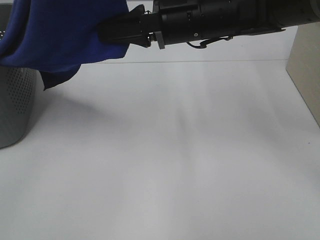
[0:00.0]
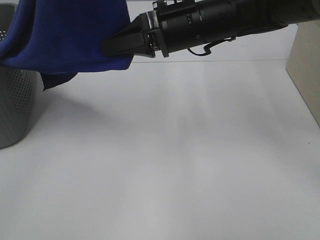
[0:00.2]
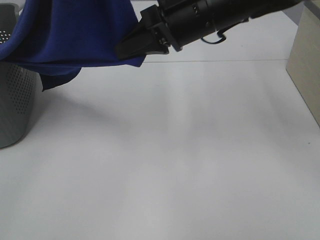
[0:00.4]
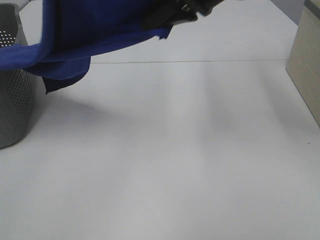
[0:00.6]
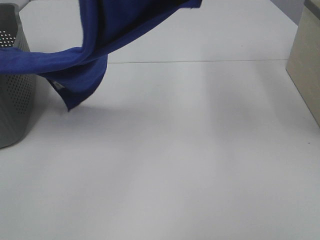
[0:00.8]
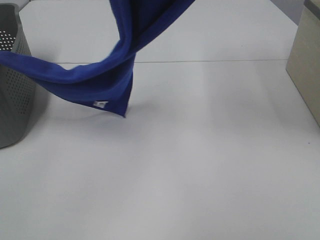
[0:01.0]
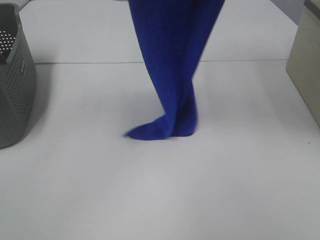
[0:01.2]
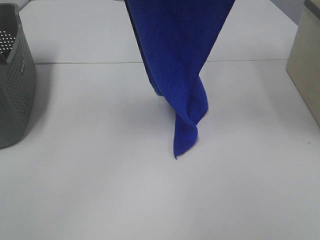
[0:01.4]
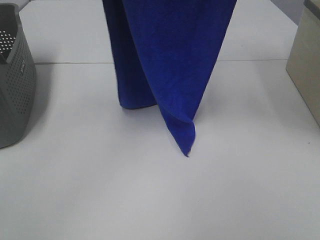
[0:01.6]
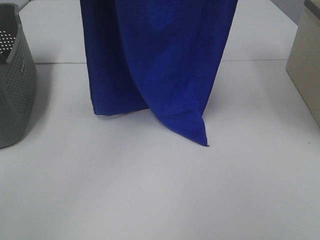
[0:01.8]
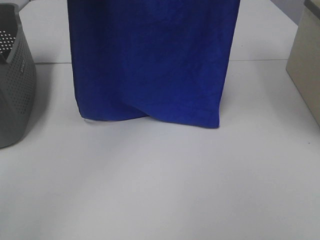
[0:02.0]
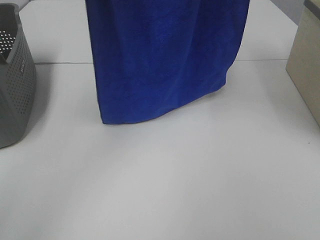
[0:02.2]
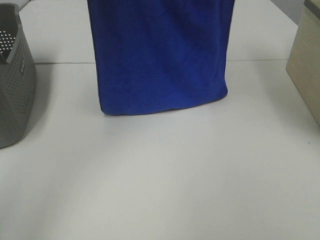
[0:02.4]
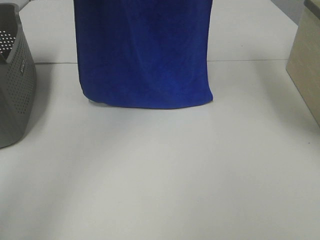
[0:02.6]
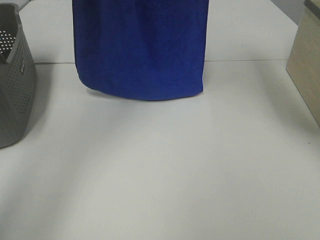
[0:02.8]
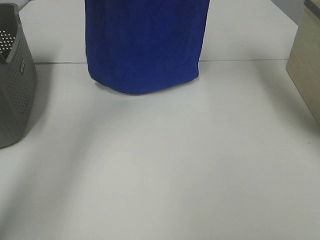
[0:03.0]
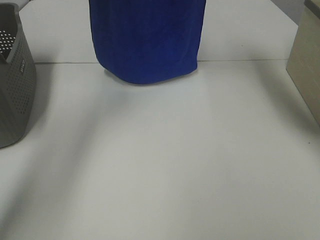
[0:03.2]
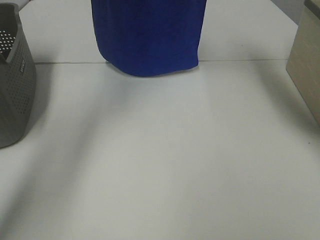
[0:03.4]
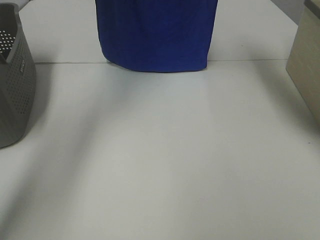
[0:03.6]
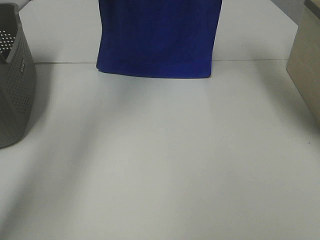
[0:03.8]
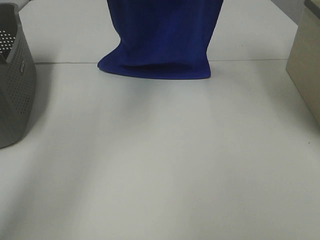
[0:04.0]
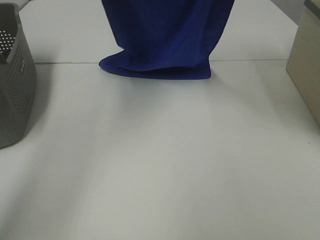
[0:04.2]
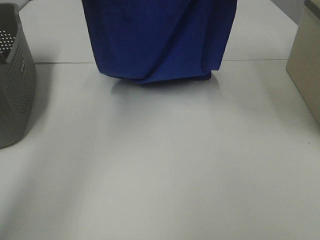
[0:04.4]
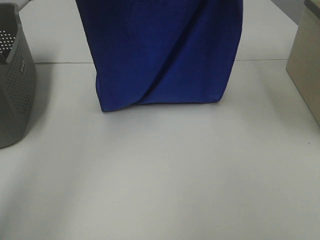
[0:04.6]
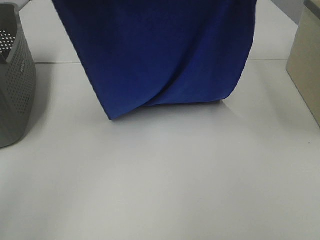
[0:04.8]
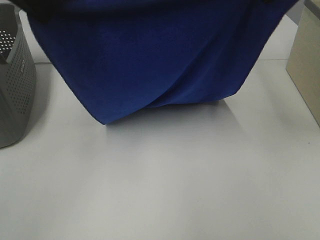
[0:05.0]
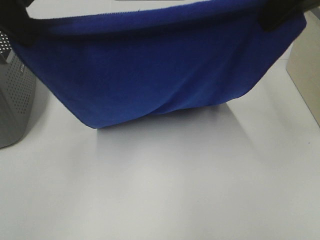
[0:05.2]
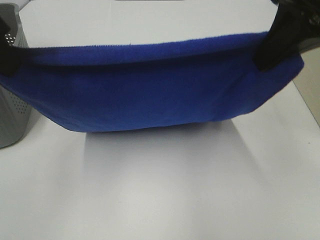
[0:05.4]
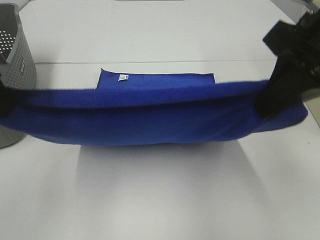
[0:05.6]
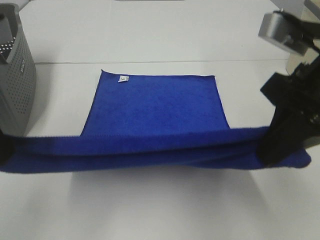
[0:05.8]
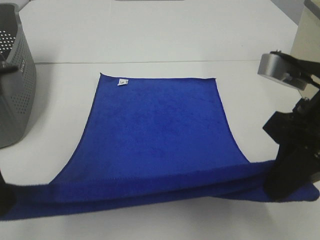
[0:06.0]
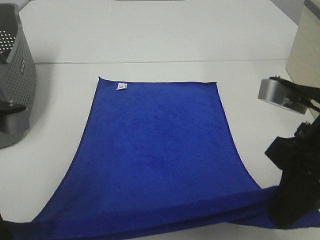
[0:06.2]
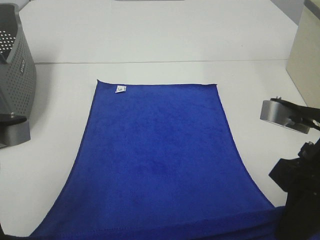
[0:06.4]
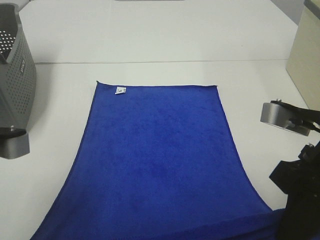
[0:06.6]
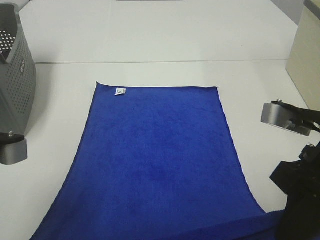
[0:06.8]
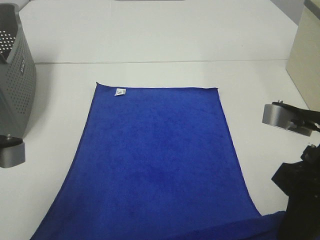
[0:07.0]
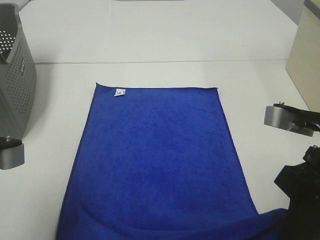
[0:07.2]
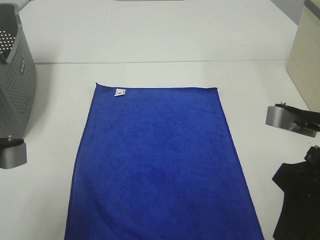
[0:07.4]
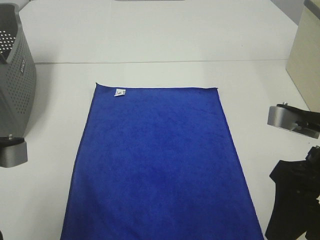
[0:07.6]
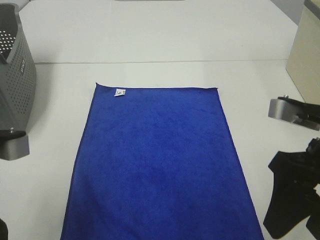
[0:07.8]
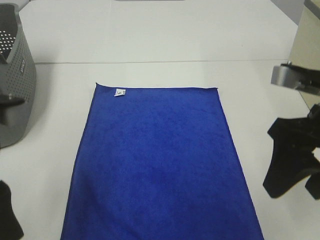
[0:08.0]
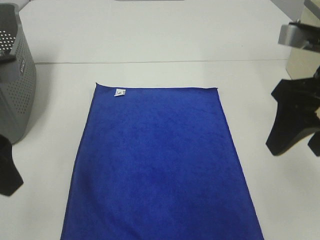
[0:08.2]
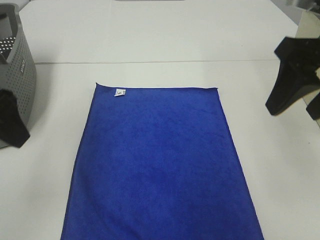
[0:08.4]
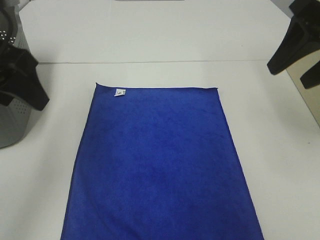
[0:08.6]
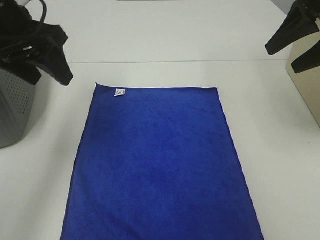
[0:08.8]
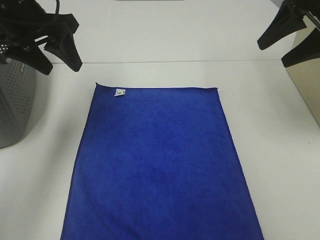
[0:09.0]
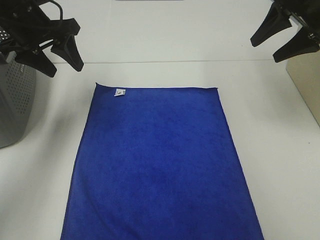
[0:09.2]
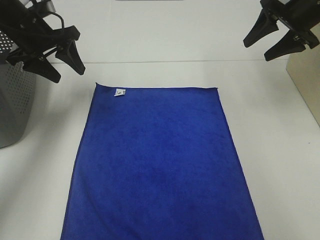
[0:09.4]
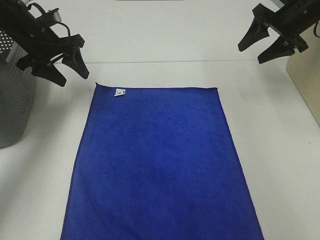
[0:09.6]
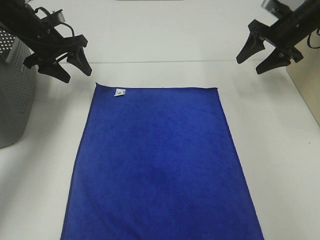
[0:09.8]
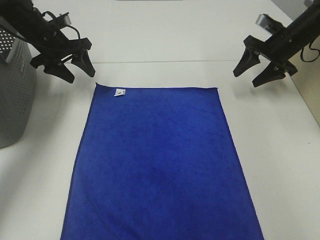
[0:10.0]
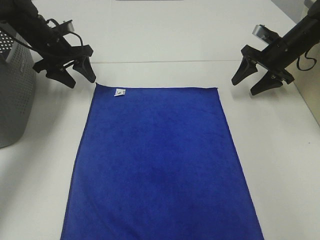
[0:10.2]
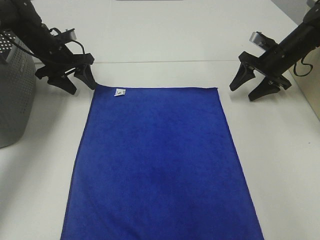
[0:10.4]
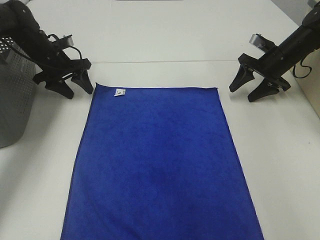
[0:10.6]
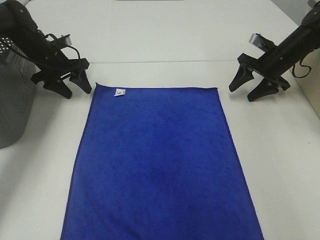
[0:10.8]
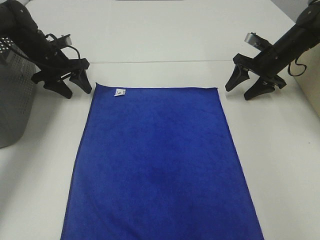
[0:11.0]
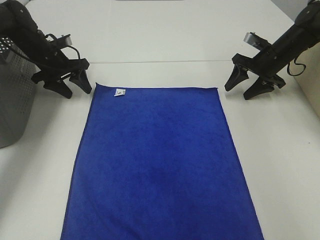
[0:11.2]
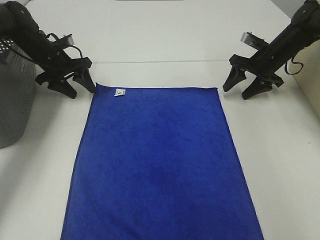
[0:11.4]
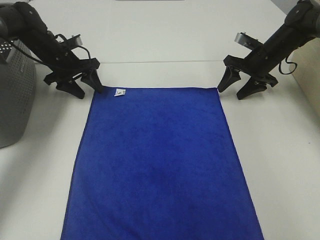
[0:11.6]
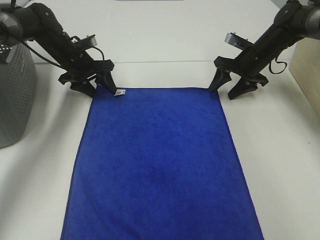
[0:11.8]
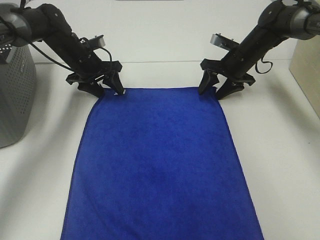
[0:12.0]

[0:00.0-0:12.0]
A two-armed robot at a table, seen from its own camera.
Task of the whole recording: Remove the towel and place it.
Step, 0:00.0 to 0:03.6: Left hand: spread the blue towel flat on the table.
Step, 0:00.0 to 0:03.6: Right hand: spread the blue towel flat on the table.
Step, 0:03.8 to 0:11.0: Left hand:adjust the blue towel.
Step, 0:03.8 to 0:11.0: Right hand:adjust the blue towel.
0:00.0 to 0:01.6: The right gripper heads upward, covering approximately 25 cm. The left gripper goes some 10 cm forward.
0:01.6 to 0:03.0: The two grippers go approximately 15 cm forward.
0:03.0 to 0:04.4: Both grippers move backward, some 5 cm.
0:04.4 to 0:06.0: Both grippers move backward and downward, approximately 30 cm.
0:06.0 to 0:07.6: The left gripper moves some 5 cm, and opens up; the right gripper opens.
0:07.6 to 0:09.0: The two grippers go roughly 25 cm forward.
0:09.0 to 0:10.4: The two grippers go about 20 cm downward and forward.
0:10.4 to 0:12.0: The right gripper heads to the left, covering some 10 cm, while the left gripper moves to the right, about 5 cm.

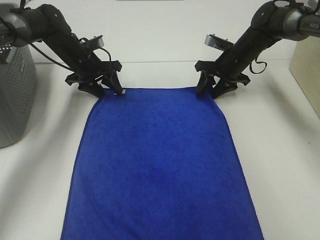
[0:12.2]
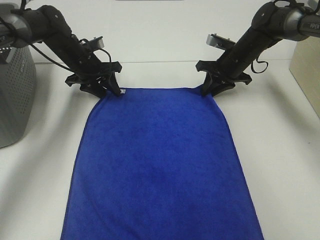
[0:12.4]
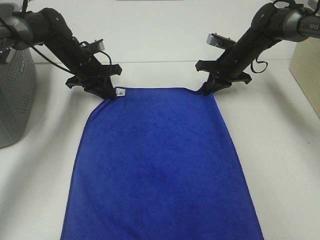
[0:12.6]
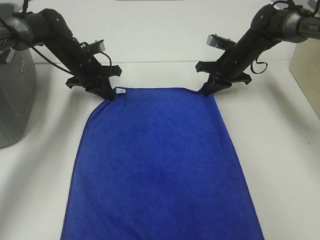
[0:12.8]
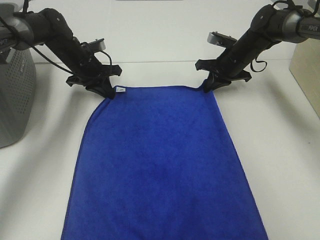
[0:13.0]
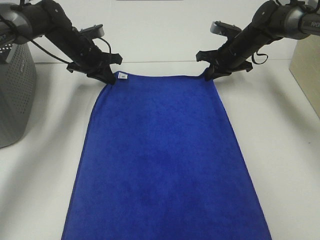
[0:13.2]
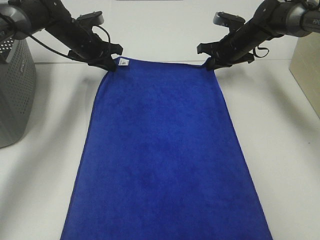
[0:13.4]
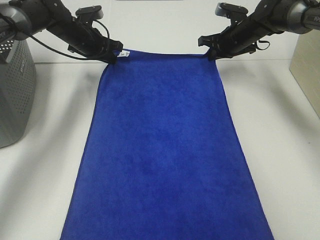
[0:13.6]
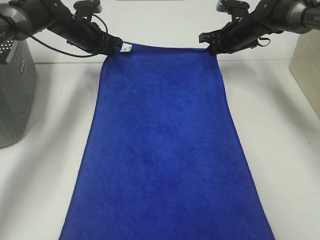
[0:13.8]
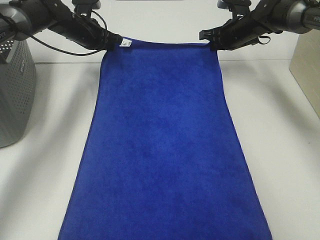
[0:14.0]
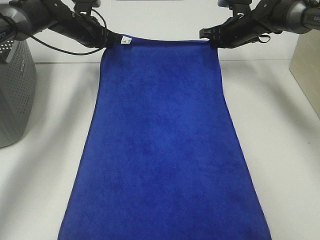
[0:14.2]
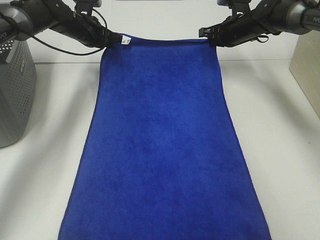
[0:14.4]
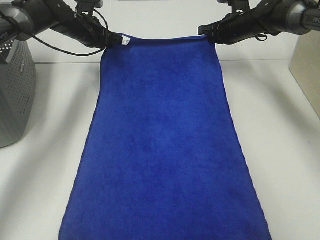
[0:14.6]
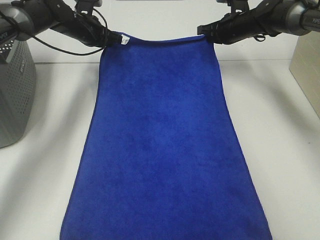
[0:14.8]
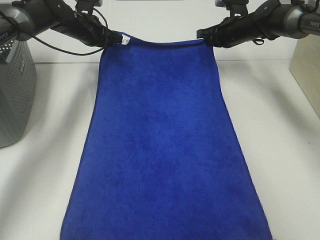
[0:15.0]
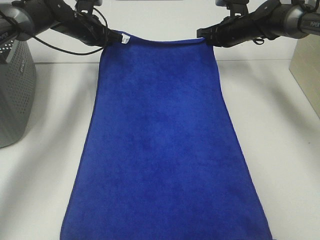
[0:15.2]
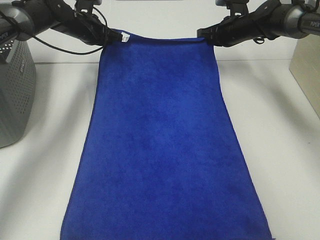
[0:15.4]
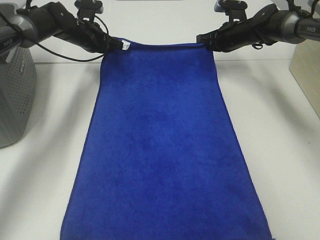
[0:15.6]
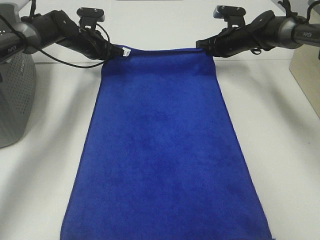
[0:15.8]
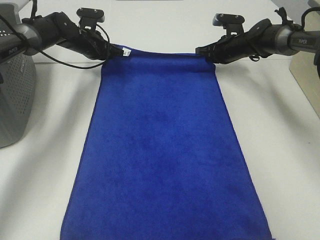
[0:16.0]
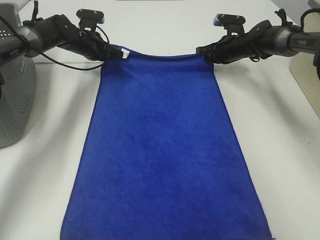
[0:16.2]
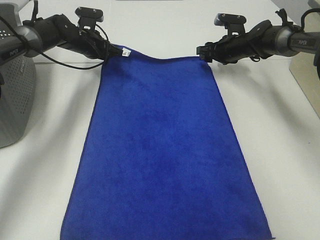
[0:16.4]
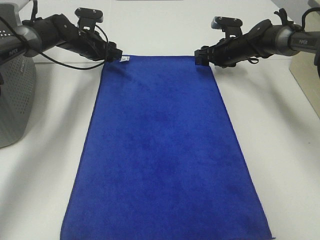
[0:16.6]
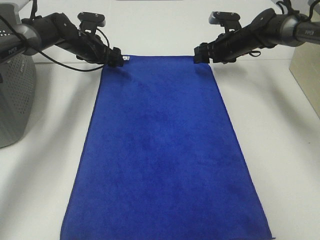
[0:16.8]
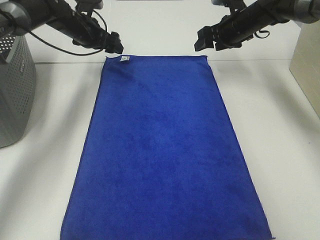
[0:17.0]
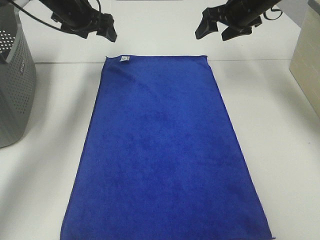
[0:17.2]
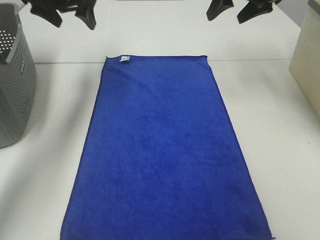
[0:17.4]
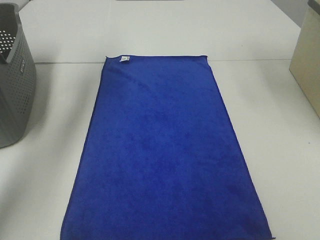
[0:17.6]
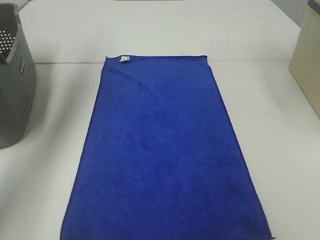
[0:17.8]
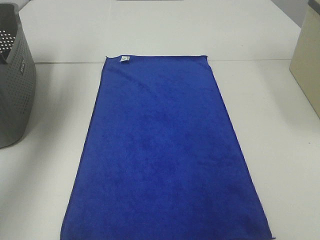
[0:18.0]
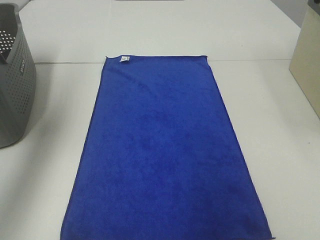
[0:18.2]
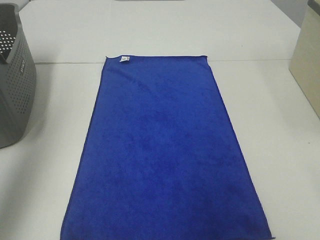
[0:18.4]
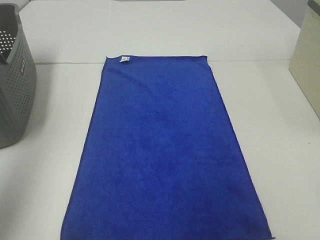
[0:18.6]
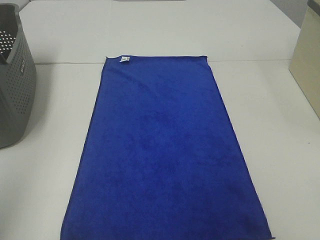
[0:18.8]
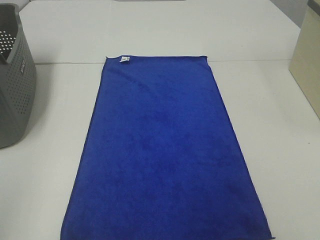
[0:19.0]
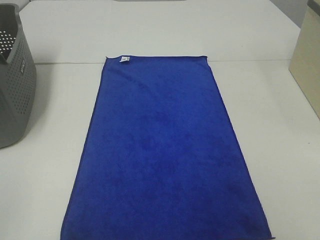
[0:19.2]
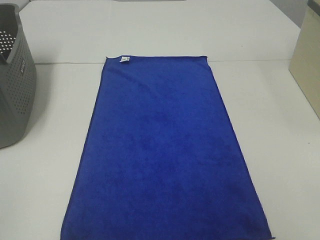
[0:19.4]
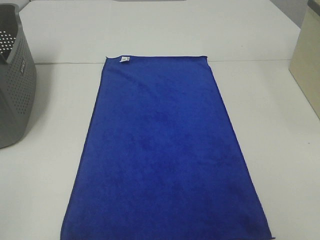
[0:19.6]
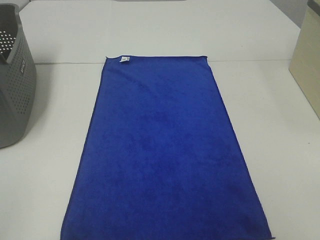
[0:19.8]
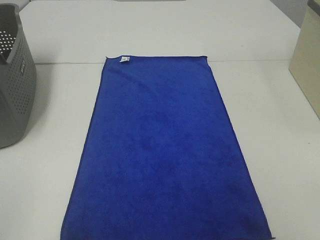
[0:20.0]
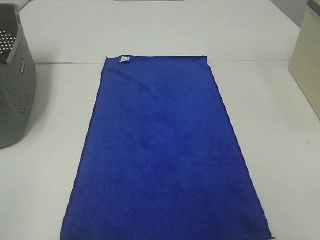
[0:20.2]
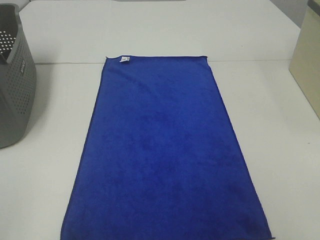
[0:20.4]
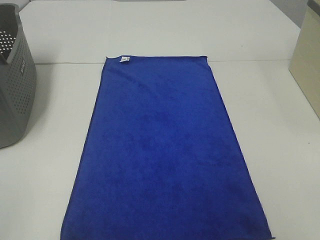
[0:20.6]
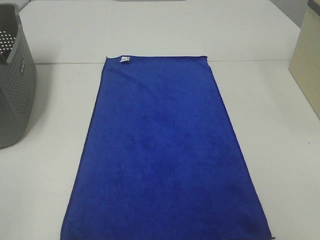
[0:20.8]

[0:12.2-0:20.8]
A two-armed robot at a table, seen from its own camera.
Task of the whole recording: Remove the towel and place it.
0:12.2 to 0:13.6: The left gripper shifts by some 5 cm, and closes its fingers; the right gripper moves roughly 5 cm, and closes up.
0:13.6 to 0:15.0: The grippers move only a little.
0:15.0 to 0:16.6: The left gripper opens, while the right gripper is displaced downward by approximately 5 cm, and opens.
0:16.6 to 0:18.0: Both grippers travel together upward and backward, about 35 cm.
0:18.0 to 0:19.4: The left gripper moves backward, some 40 cm.

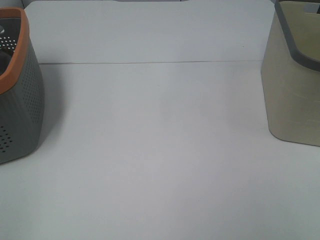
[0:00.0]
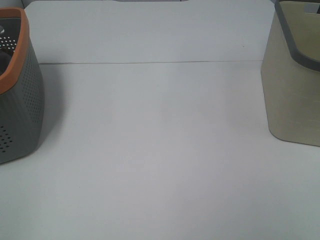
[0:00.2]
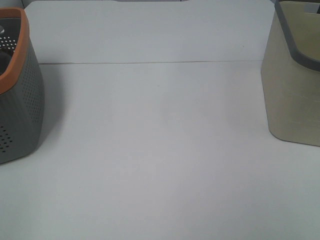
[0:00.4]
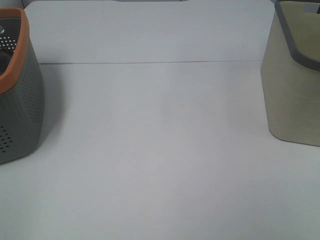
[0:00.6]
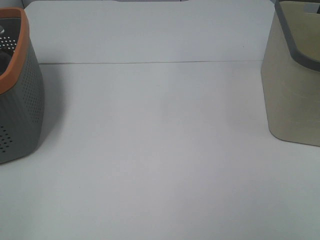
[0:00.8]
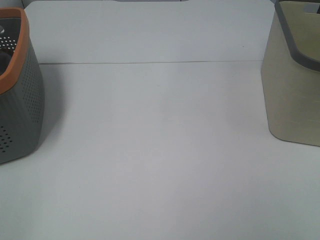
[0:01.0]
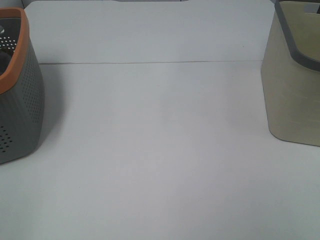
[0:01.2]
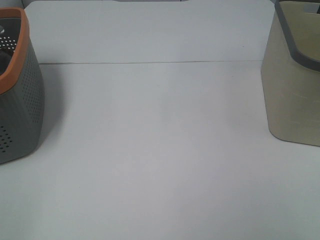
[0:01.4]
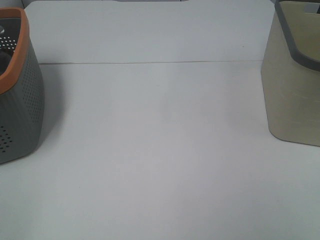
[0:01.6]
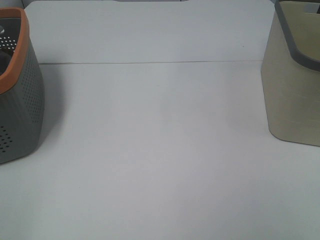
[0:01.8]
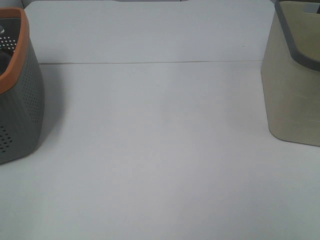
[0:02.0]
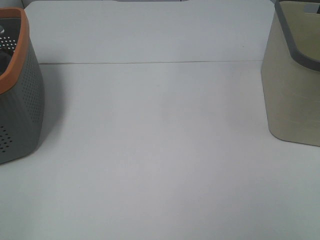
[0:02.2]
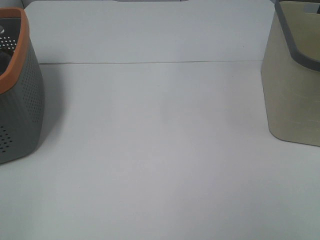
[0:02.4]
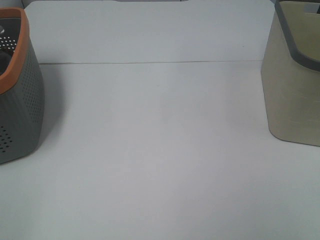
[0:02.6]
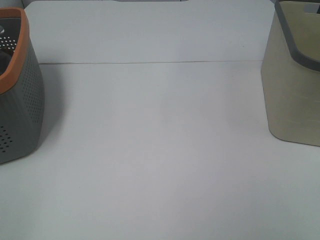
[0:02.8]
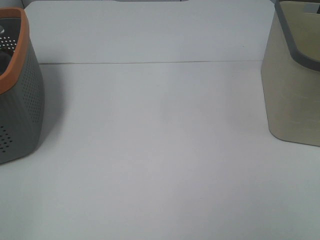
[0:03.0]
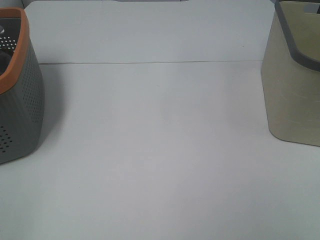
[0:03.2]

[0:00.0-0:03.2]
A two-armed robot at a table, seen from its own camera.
Task of the whole recording: Remove the towel and place it.
0:00.0 to 0:03.2: Both grippers stay put.
